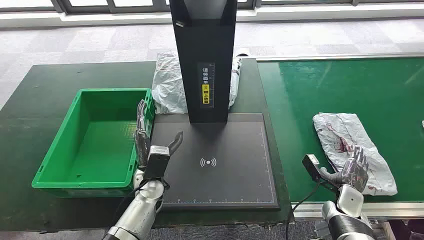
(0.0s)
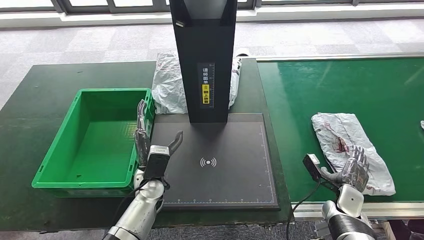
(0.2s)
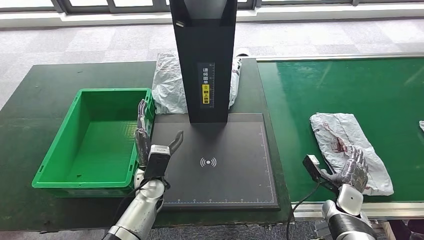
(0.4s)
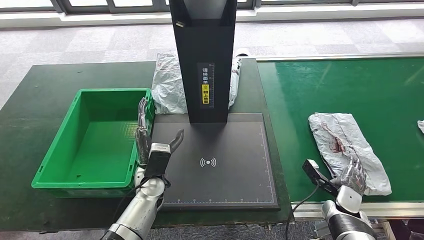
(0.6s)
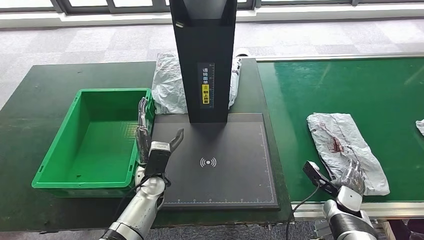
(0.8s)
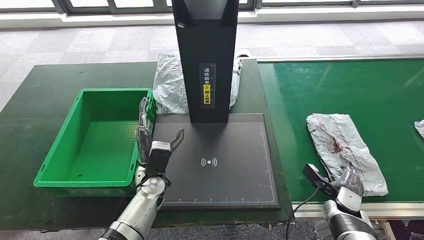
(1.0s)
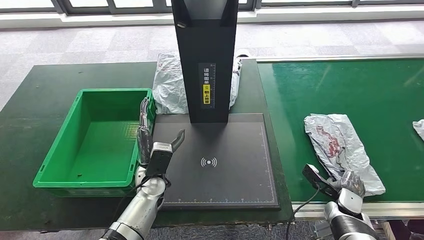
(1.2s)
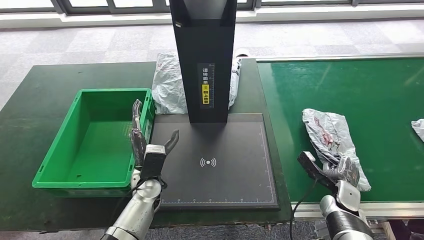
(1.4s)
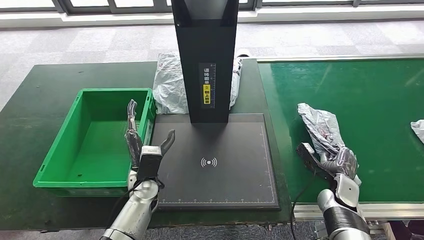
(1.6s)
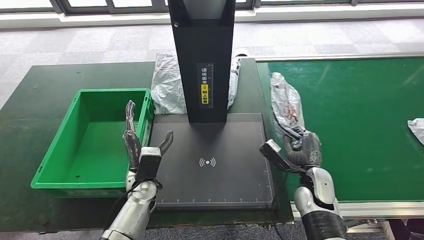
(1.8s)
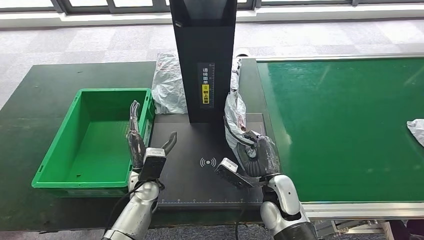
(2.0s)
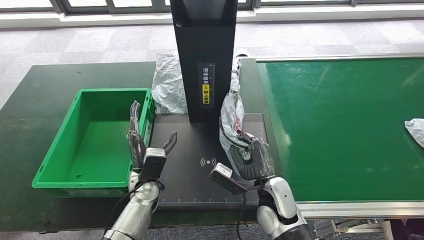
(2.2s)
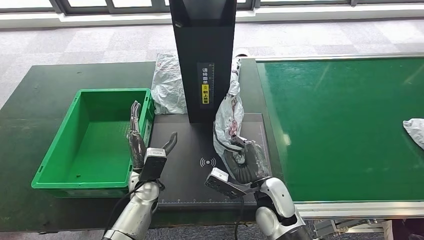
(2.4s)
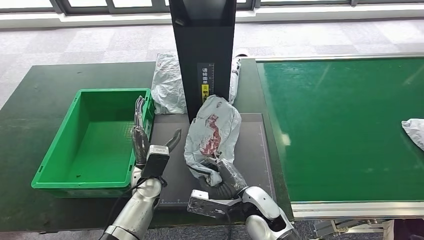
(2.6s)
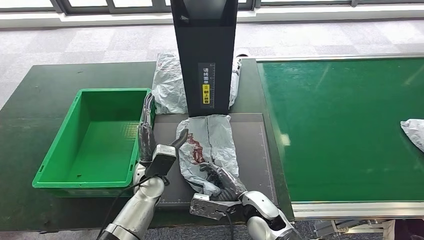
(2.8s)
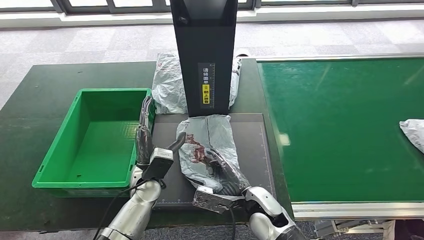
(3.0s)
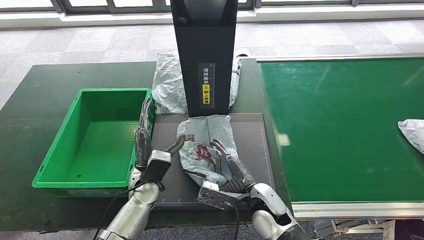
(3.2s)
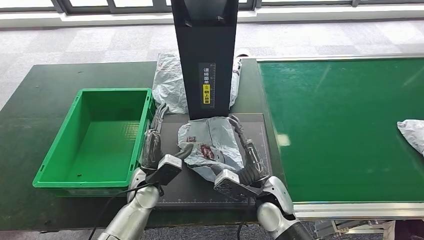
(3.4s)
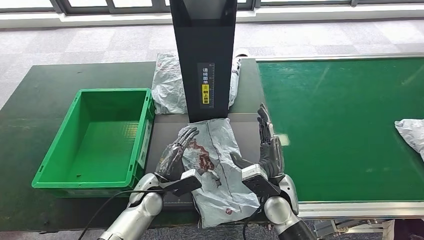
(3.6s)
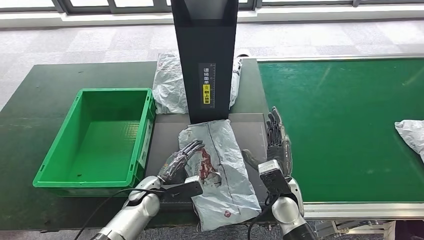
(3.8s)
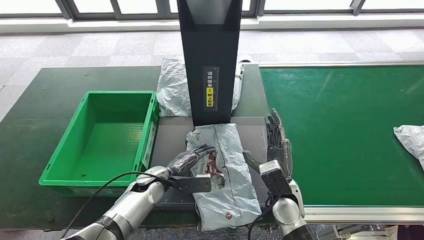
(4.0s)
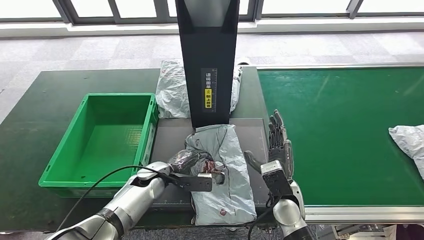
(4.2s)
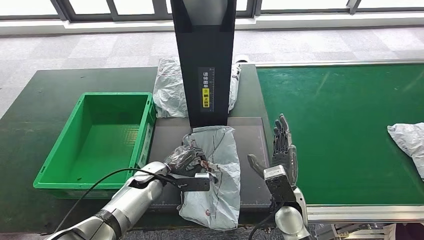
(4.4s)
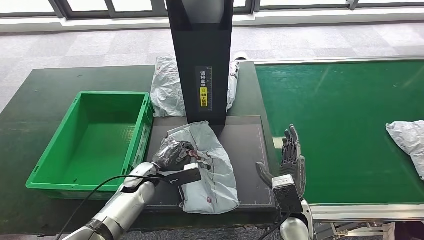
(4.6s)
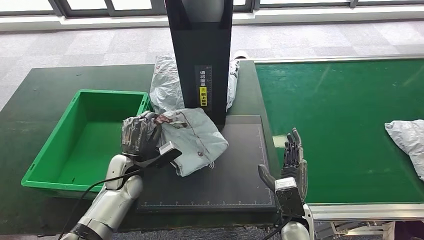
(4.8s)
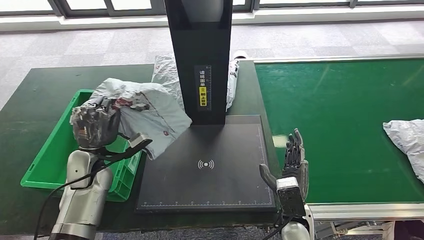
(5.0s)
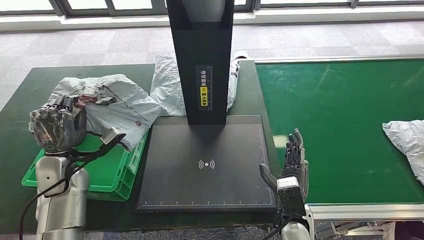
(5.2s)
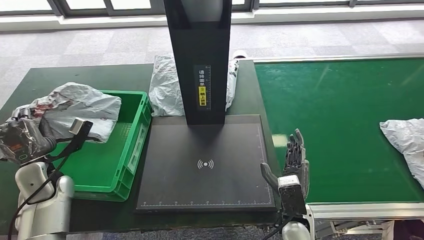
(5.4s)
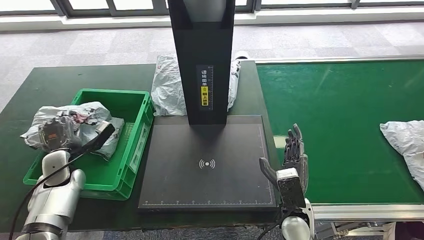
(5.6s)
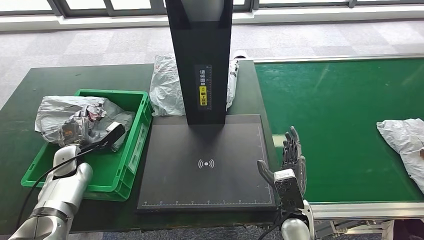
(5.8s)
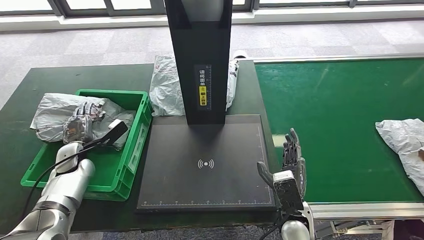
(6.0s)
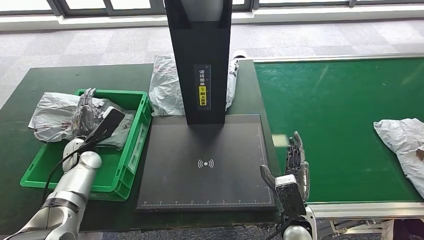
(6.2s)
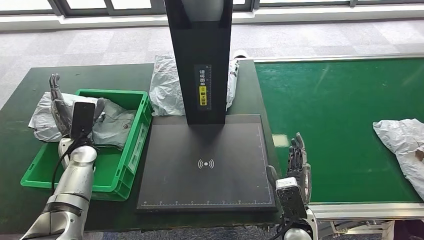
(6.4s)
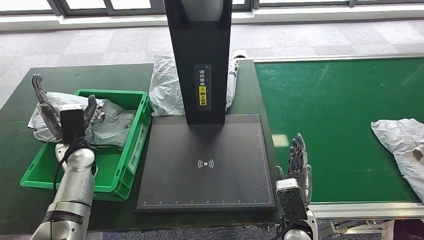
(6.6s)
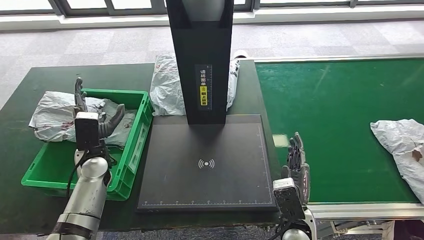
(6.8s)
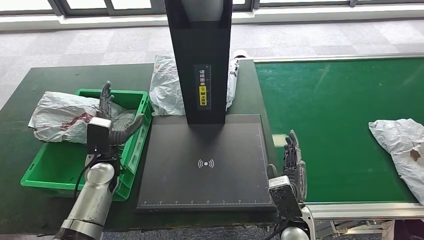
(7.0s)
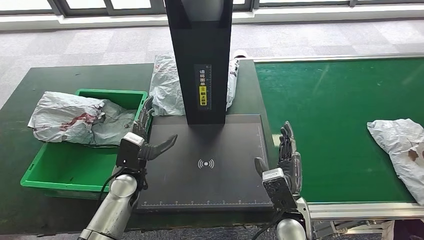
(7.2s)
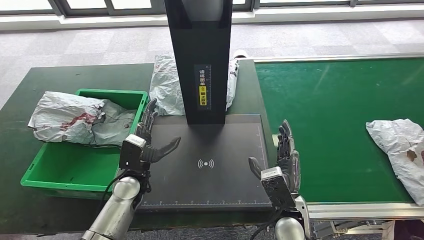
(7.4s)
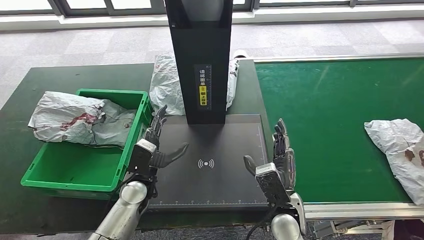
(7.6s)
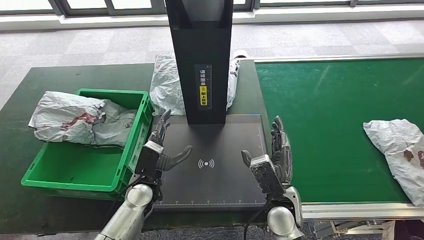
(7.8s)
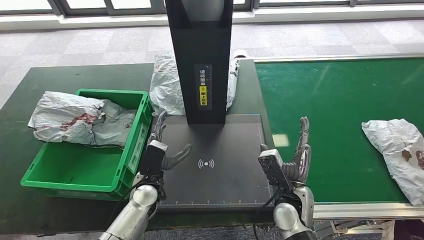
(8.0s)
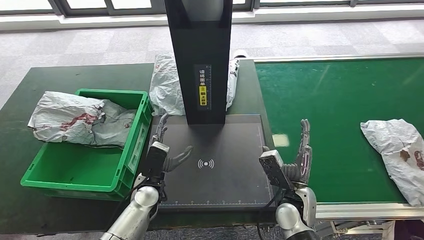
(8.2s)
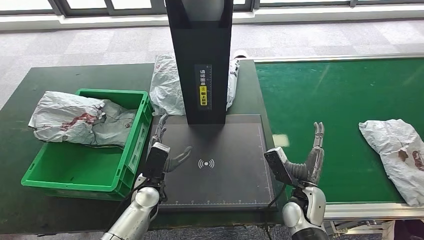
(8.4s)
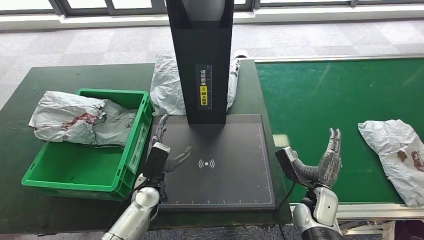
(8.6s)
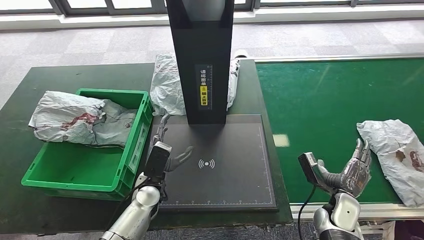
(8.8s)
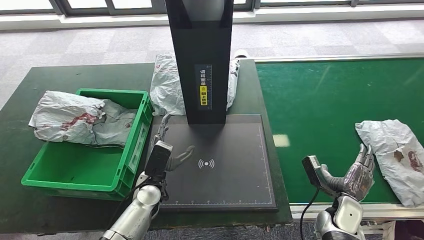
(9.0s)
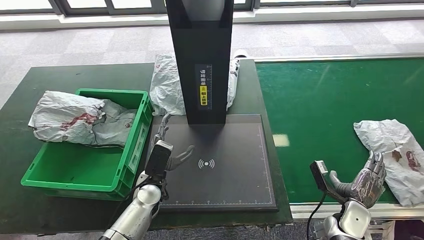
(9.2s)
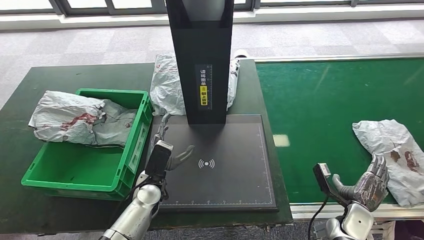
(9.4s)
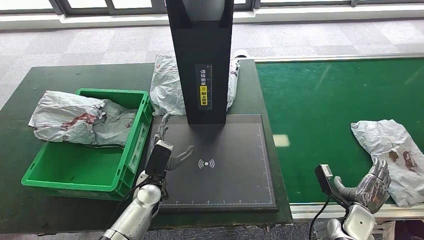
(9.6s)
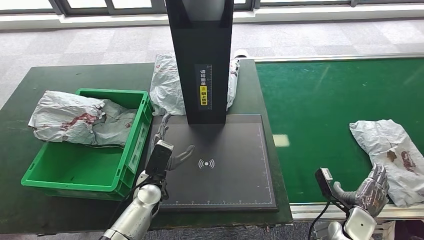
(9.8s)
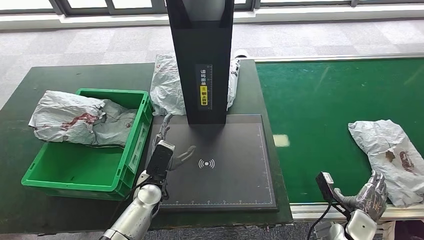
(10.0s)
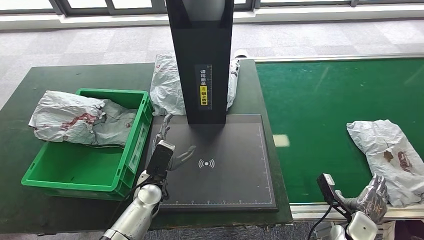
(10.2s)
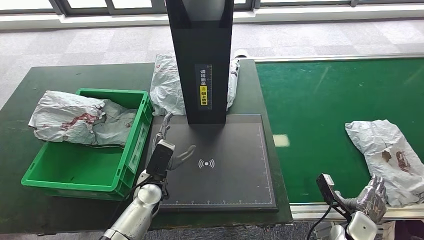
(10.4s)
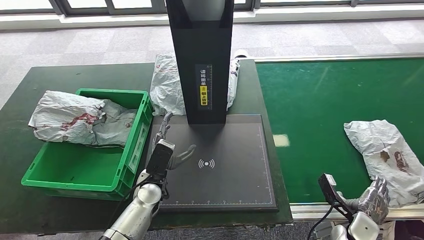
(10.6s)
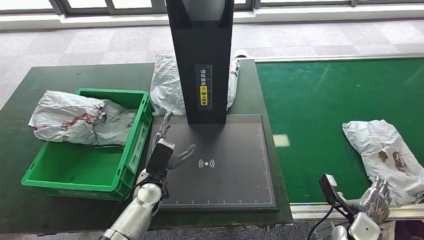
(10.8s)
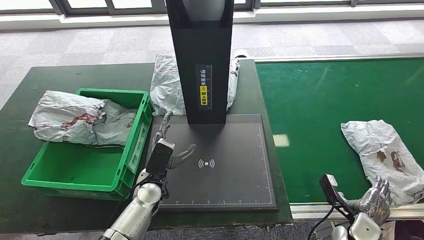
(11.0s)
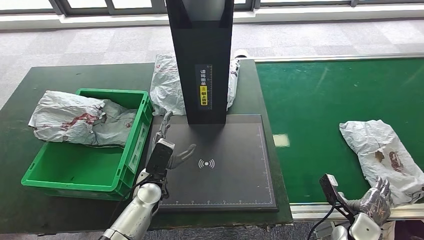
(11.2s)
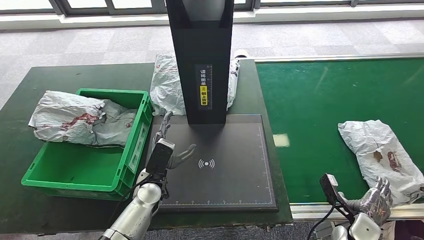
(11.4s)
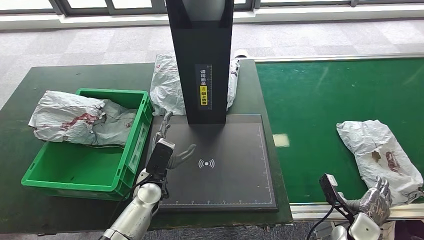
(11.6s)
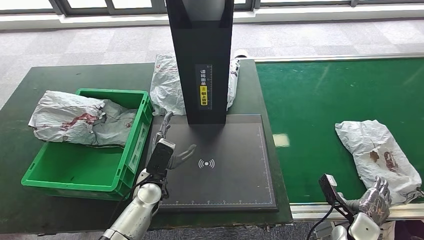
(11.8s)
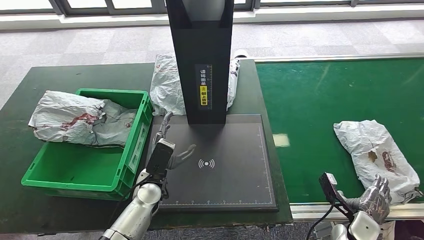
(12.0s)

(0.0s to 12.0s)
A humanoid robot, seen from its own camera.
Step, 0.0s - 2.0s: Take the parcel off the conveyor belt.
Step, 2.2s - 4.0s: Place the parcel onto the inbound machine.
Step, 4.4s - 5.0s: Pick up the parcel from the inbound machine.
Step, 5.2s - 7.6s: Put the parcel inside the courier box.
1.6s - 3.0s: The right hand goes roughly 20 cm to the left.
6.0s - 7.6s: The left hand heads to the right, covering roughly 20 cm.
7.6s - 9.0s: The right hand is displaced to the right and downward by some 20 cm.
9.0s - 10.4s: The right hand ends up approximately 5 cm from where it was.
10.4s - 12.0s: The two hands keep their place.

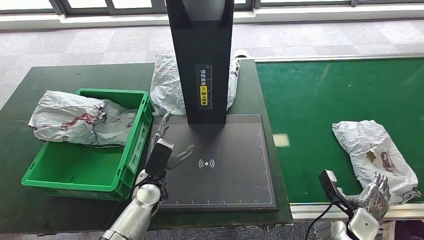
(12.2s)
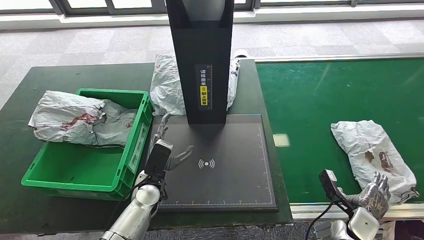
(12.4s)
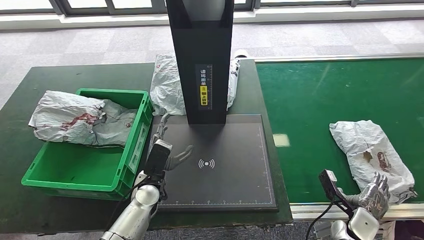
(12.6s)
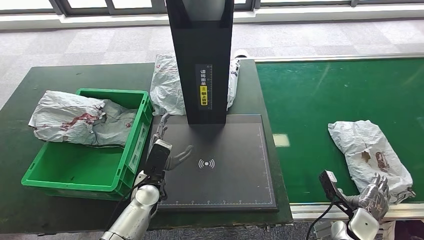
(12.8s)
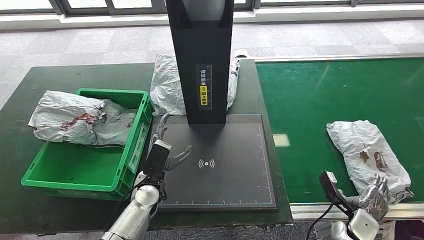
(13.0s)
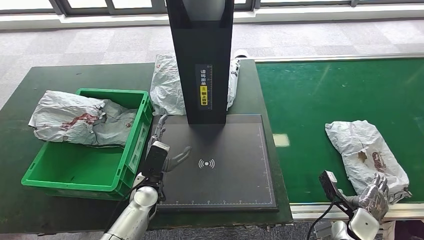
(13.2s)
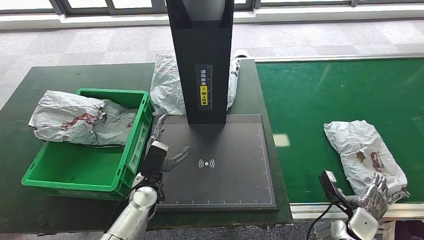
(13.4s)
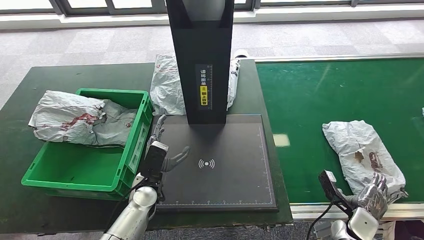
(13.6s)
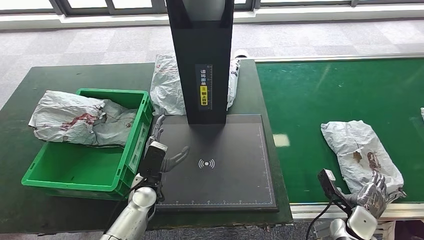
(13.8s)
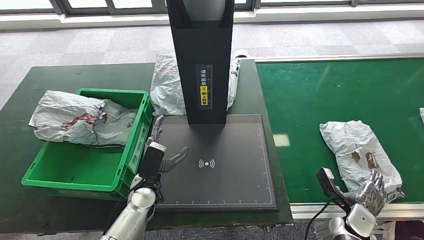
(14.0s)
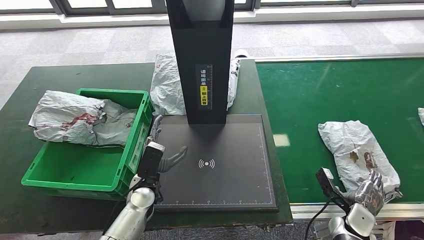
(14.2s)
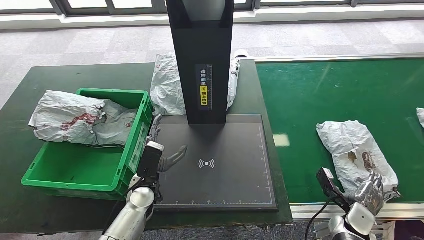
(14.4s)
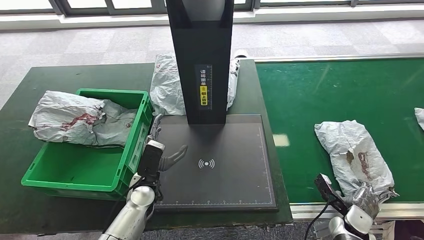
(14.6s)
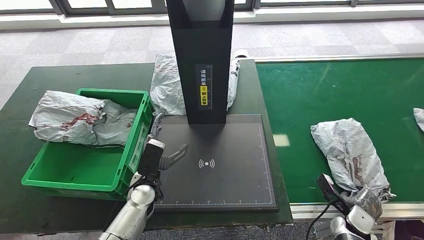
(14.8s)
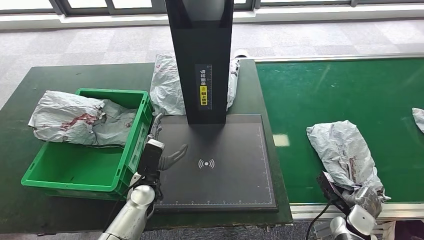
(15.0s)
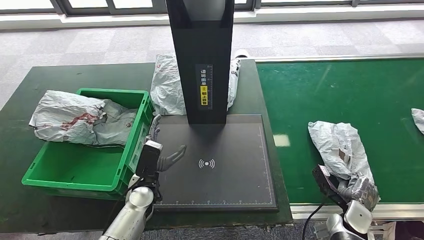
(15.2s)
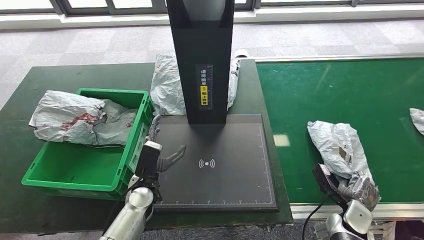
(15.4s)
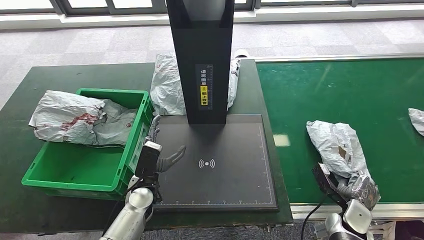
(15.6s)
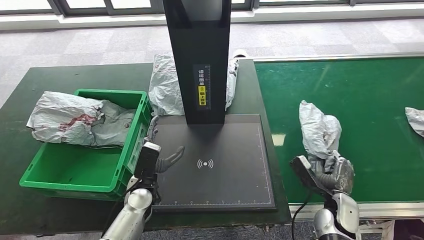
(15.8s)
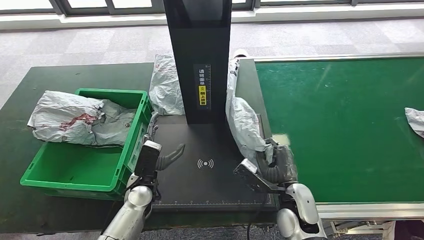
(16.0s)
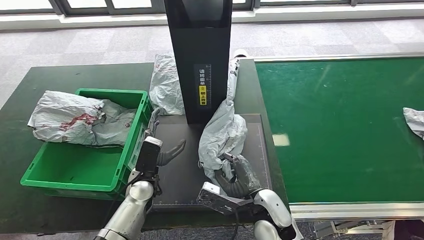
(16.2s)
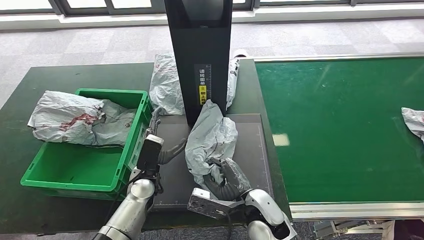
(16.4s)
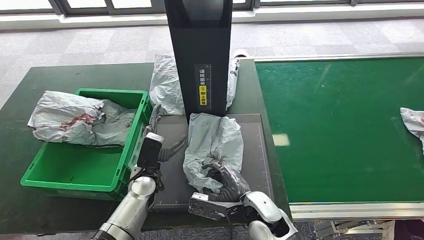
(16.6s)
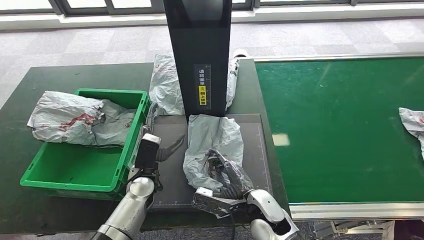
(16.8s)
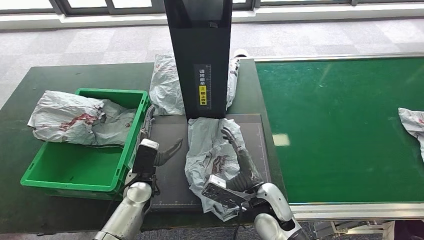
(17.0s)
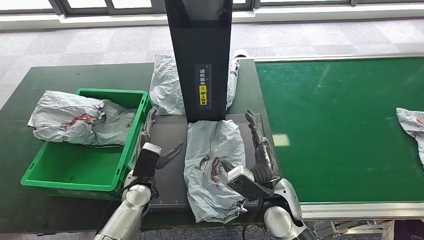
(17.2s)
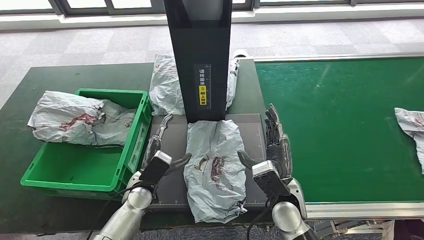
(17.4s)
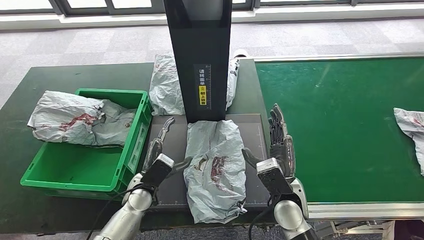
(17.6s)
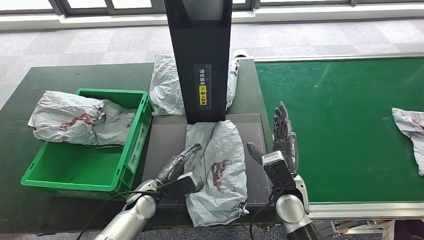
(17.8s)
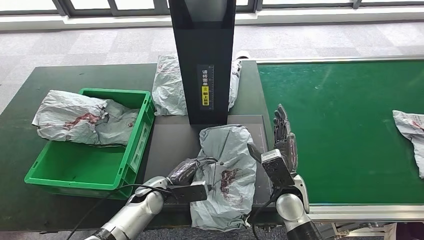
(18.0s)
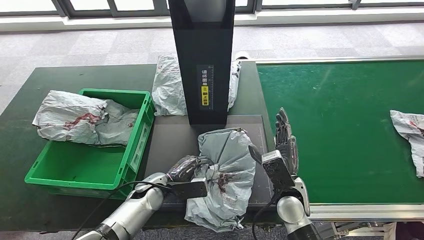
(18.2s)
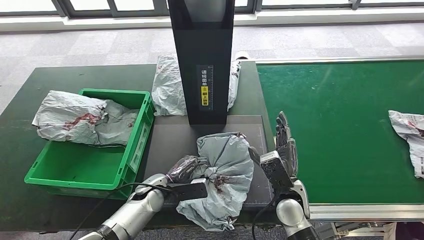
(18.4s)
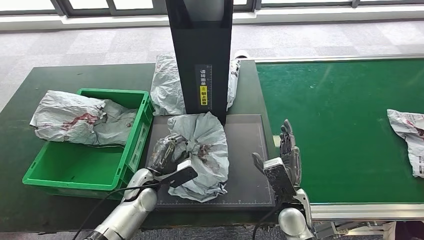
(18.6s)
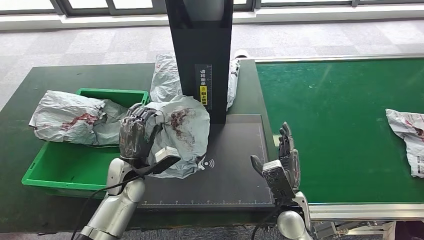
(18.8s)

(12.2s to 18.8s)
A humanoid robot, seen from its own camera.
Step, 13.0s - 16.0s: Pick up the parcel from the conveyor belt.
Step, 16.4s - 17.8s: Place the parcel onto the inbound machine.
12.2s - 13.8s: Both hands stay put.
13.8s - 15.4s: The hands move only a little.
